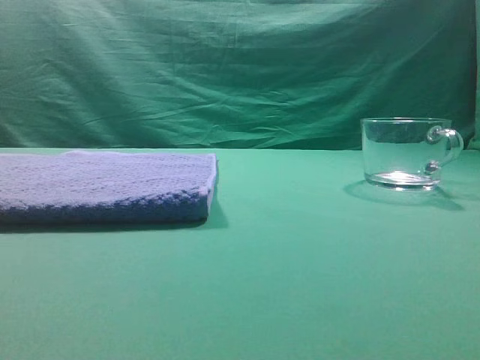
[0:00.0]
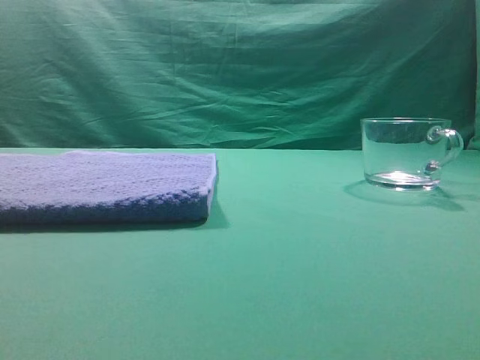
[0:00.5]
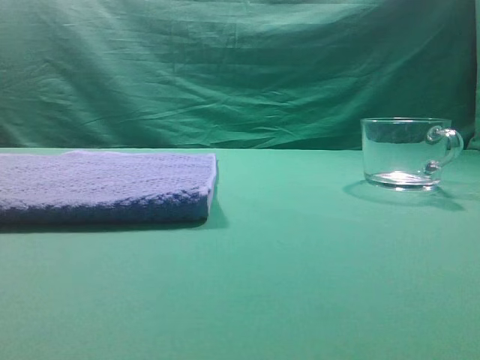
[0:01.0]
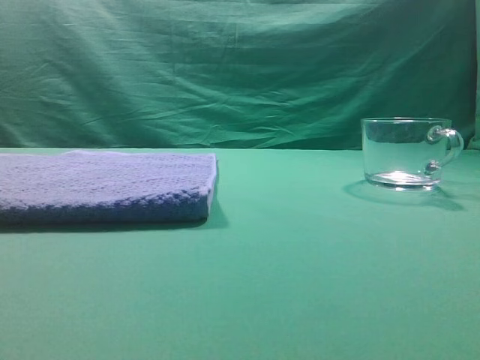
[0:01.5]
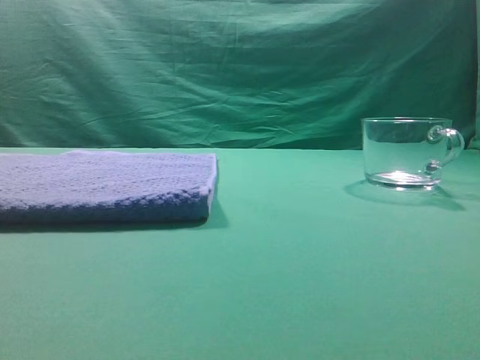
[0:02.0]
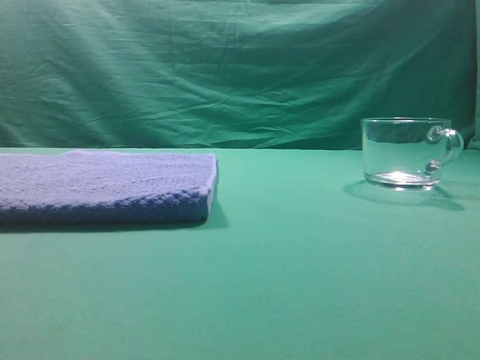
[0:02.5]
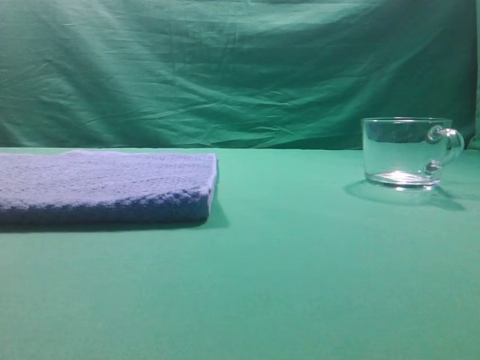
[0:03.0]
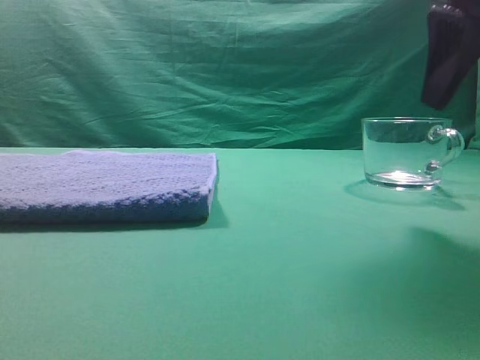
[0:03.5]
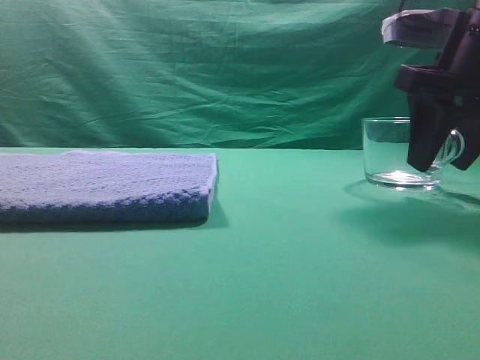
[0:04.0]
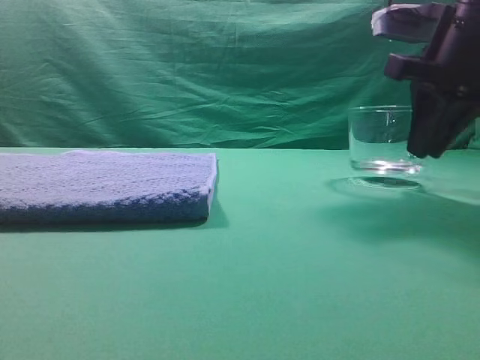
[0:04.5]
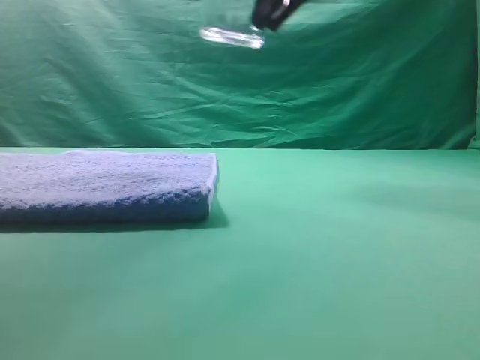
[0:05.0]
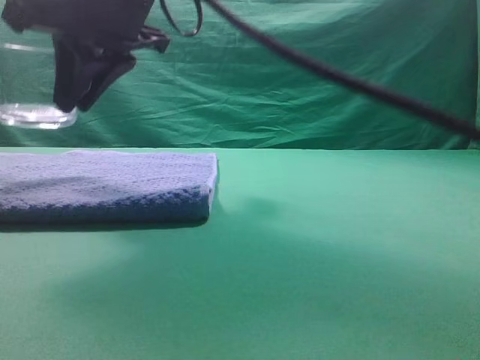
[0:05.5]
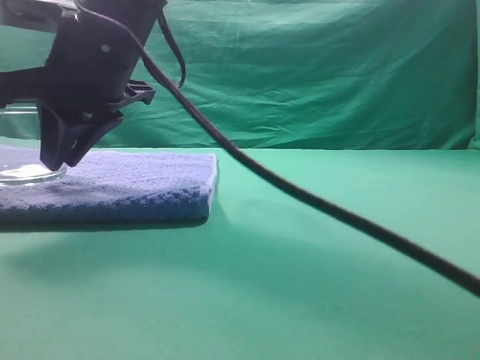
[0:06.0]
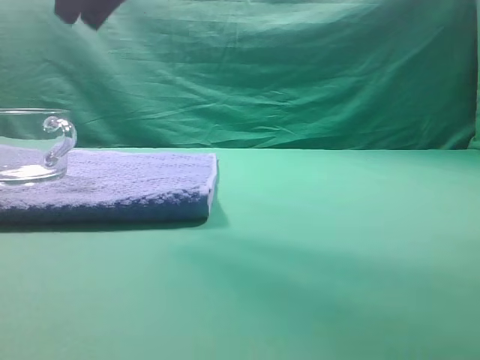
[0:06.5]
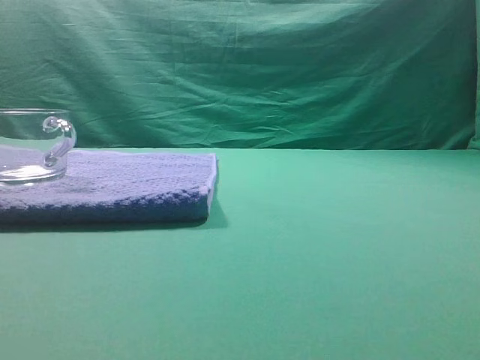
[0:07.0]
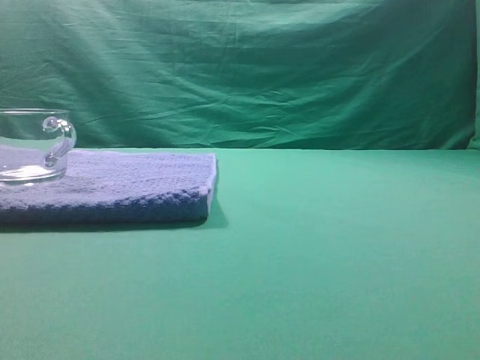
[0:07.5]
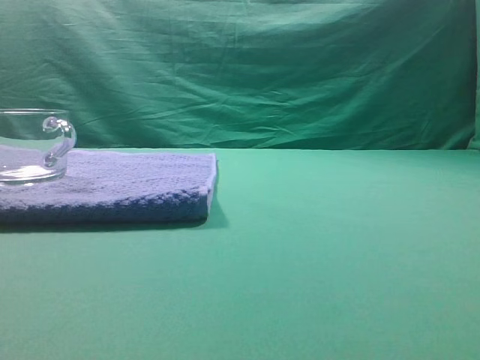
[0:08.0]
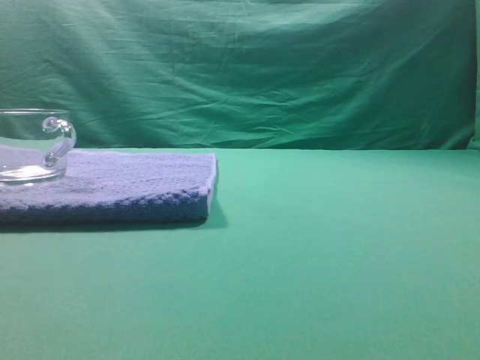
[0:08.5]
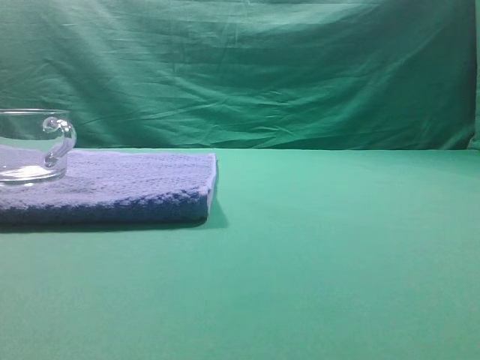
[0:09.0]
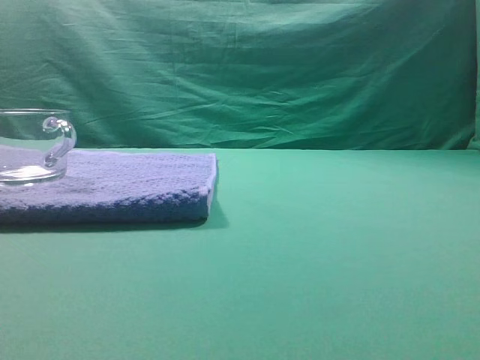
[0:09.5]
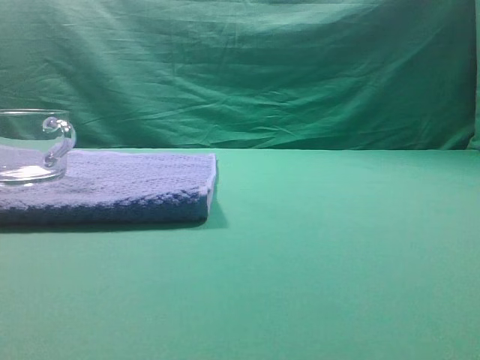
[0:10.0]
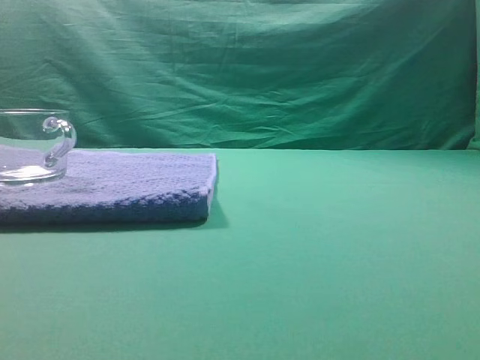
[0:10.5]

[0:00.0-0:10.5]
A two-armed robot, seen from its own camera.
Task of the whole recording: grasp the transparent glass cup and place it within the blue towel.
Step, 0:00.0 to 0:04.5: Grasp the transparent glass cup.
Step, 0:05.0 to 0:06.0: Place the glass cup on the blue zone.
